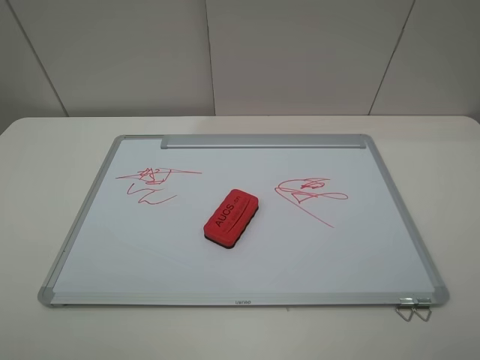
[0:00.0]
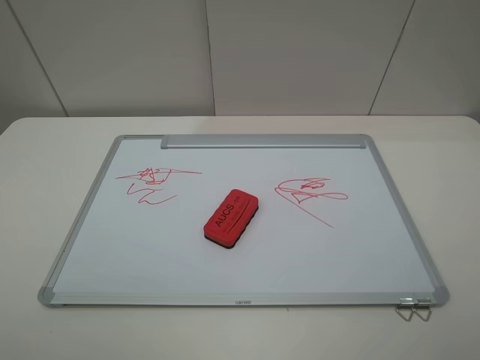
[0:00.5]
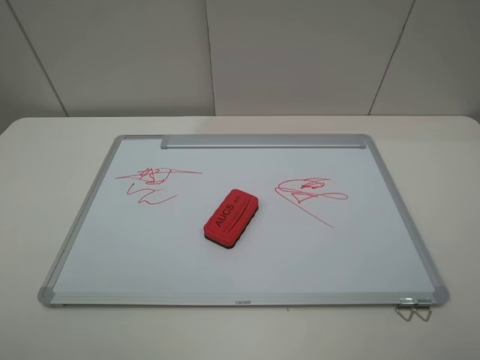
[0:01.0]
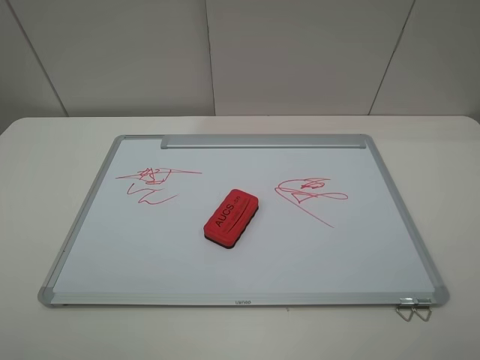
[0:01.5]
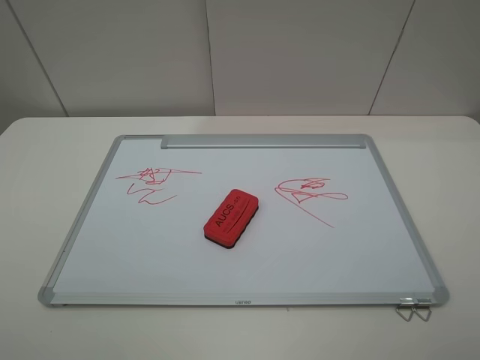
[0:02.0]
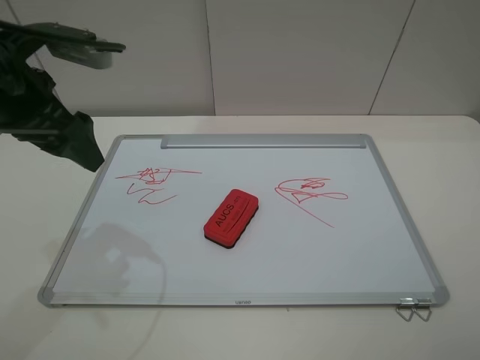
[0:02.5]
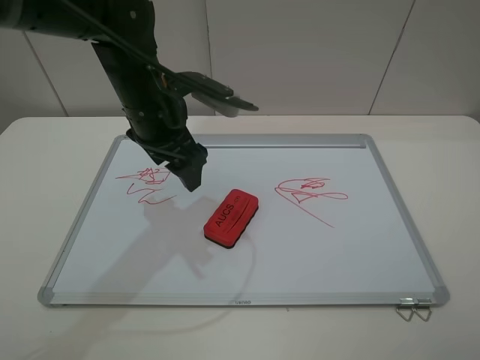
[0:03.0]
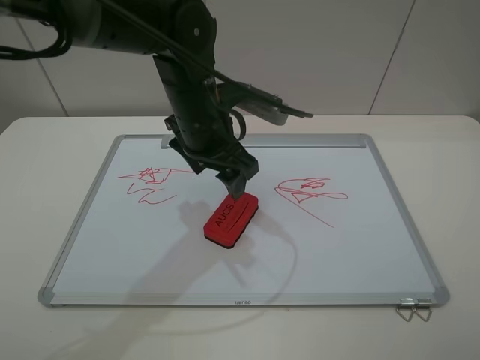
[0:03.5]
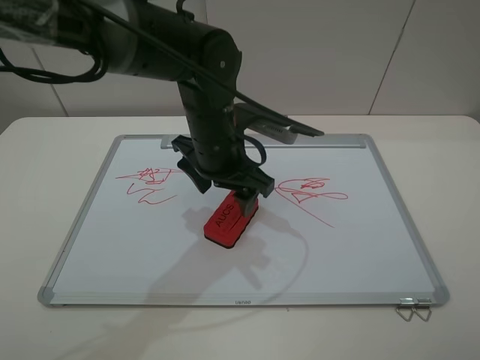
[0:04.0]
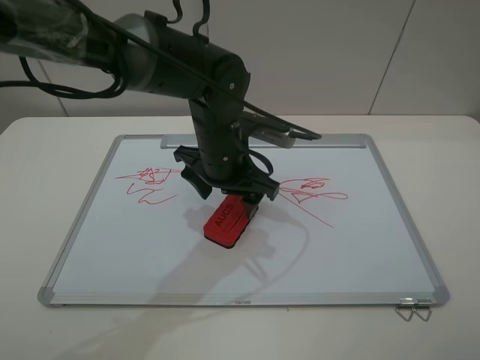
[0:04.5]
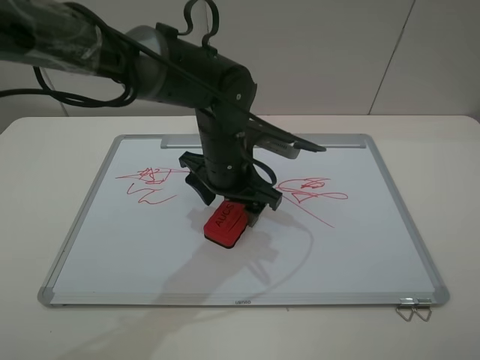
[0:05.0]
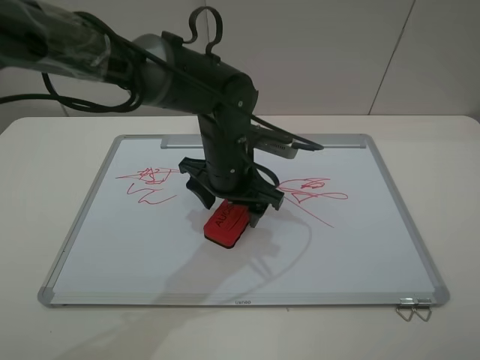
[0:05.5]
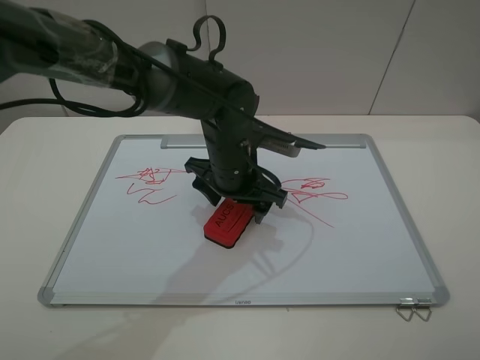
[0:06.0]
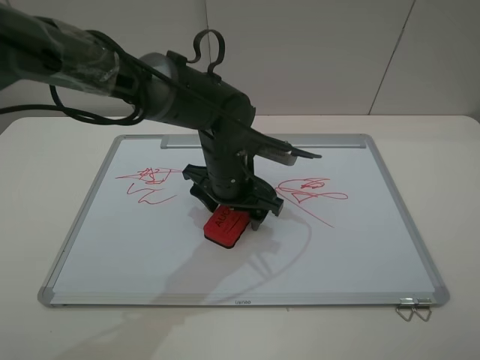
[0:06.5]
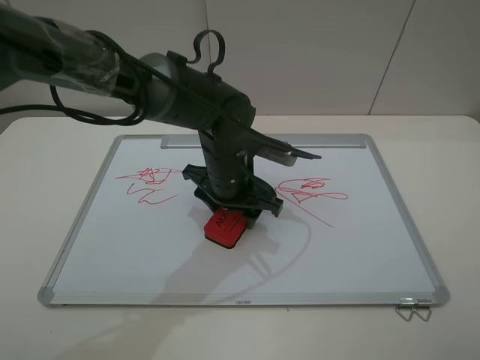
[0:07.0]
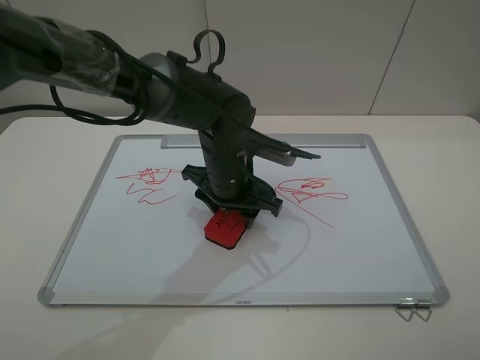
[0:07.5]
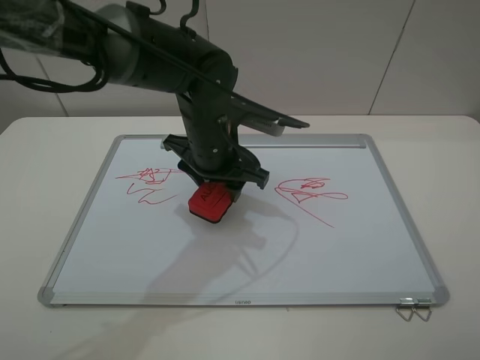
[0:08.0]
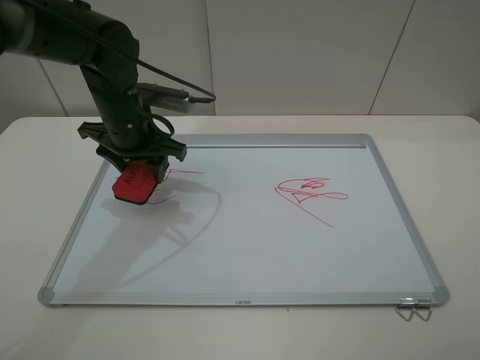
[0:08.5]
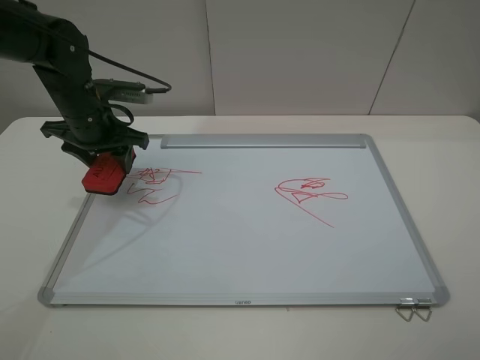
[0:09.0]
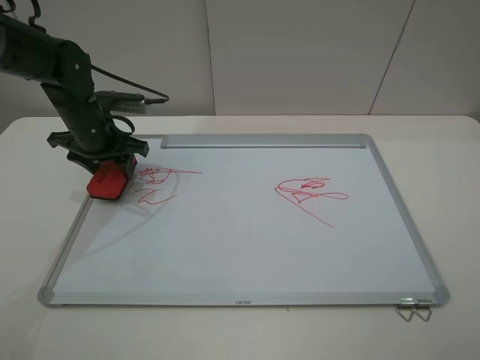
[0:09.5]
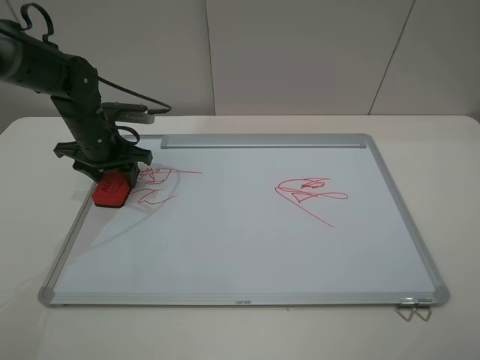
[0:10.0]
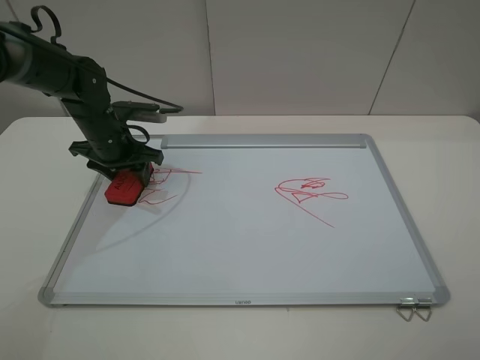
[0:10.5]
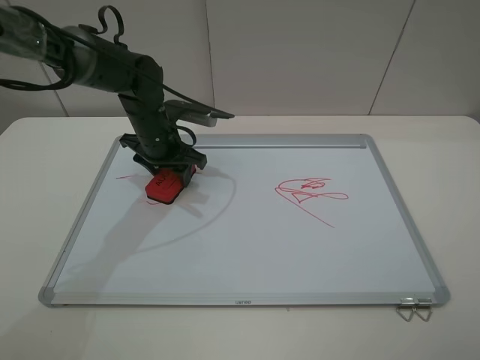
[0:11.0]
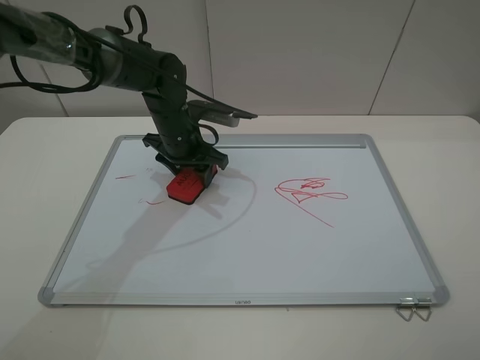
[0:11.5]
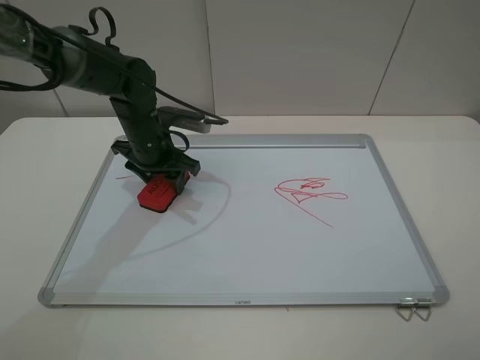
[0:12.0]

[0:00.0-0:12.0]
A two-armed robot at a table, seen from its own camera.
Step, 0.0 to 7.0 s: Grasp the eraser with the left gripper.
2.0 to 4.0 s: The left gripper goes approximately 40 cm to the right, forward and downward.
4.0 to 6.0 s: The grippers make only small movements.
6.0 to 8.0 s: The left gripper closes its fingers.
8.0 to 10.0 s: The left gripper travels to the left by roughly 20 cm.
10.0 to 12.0 s: The left gripper goes about 10 cm to the right.

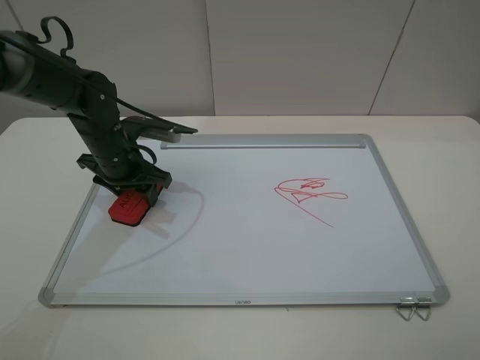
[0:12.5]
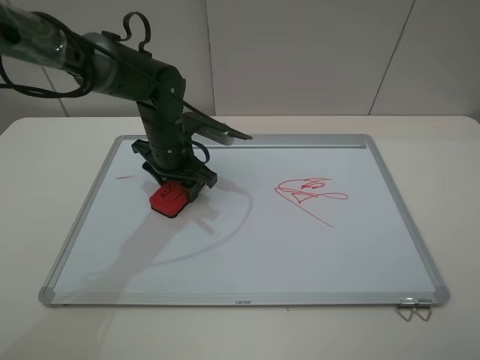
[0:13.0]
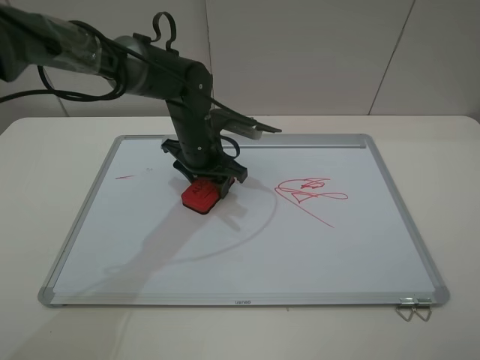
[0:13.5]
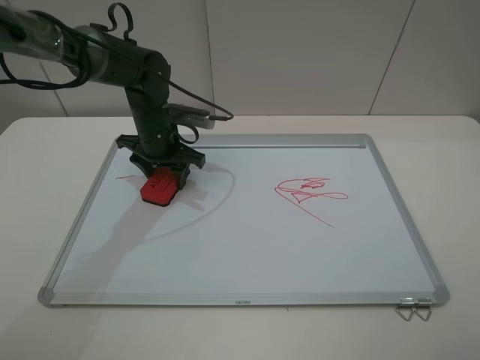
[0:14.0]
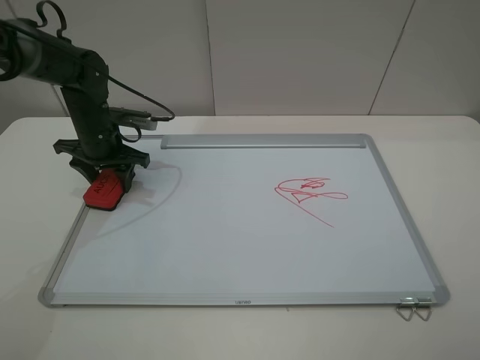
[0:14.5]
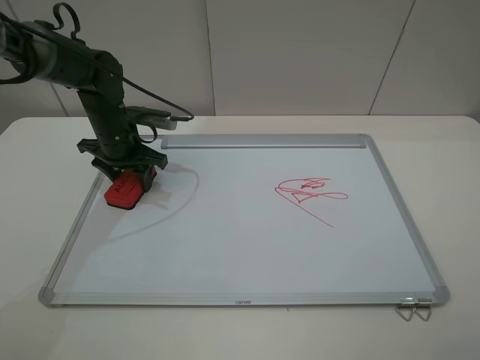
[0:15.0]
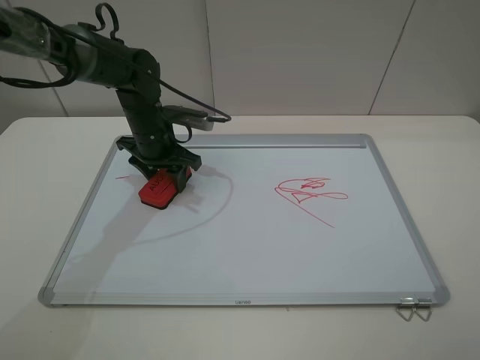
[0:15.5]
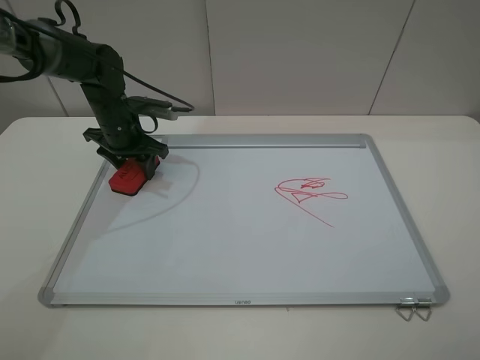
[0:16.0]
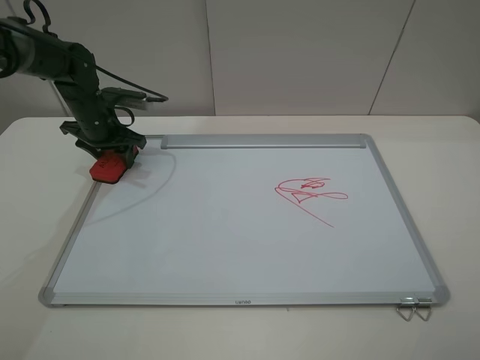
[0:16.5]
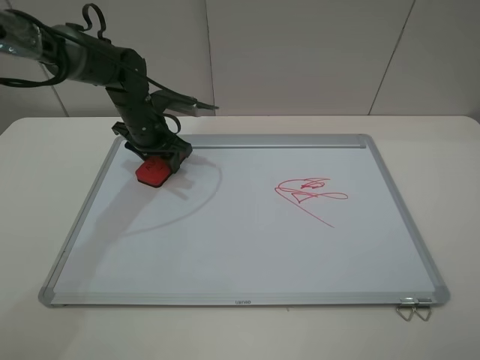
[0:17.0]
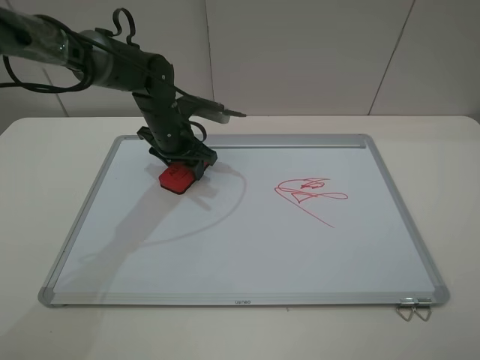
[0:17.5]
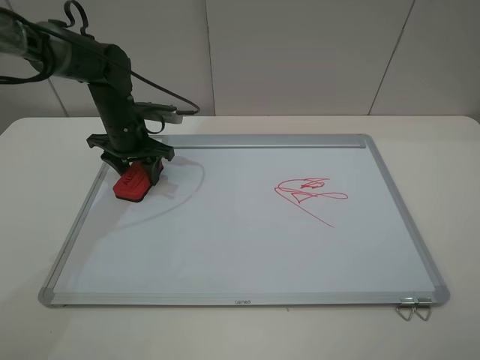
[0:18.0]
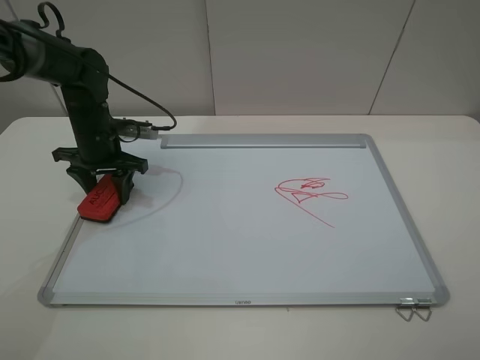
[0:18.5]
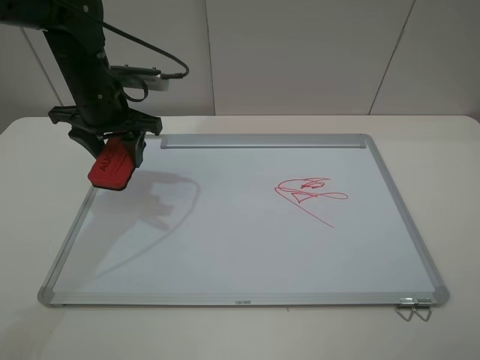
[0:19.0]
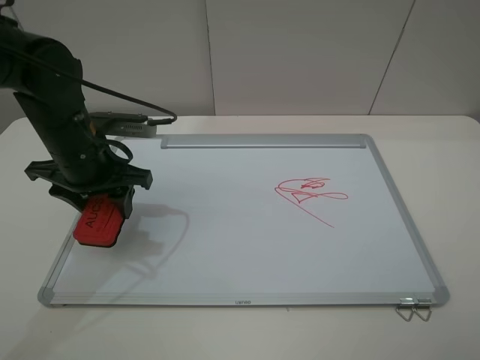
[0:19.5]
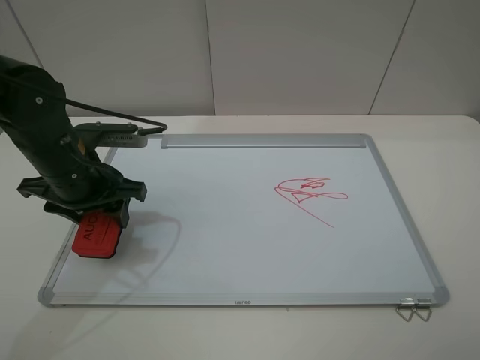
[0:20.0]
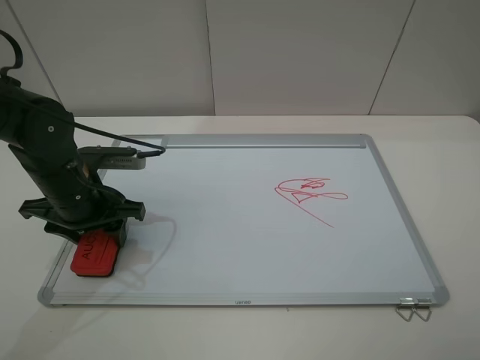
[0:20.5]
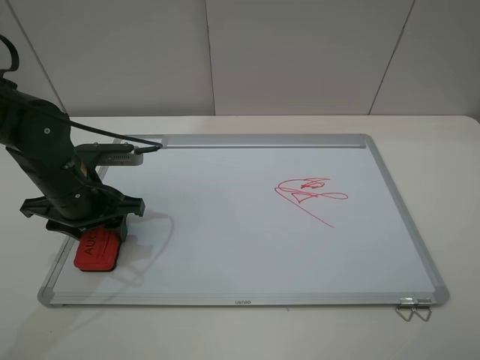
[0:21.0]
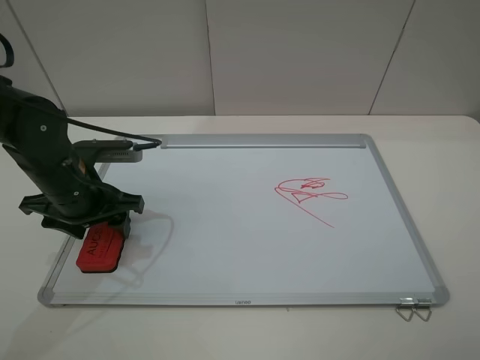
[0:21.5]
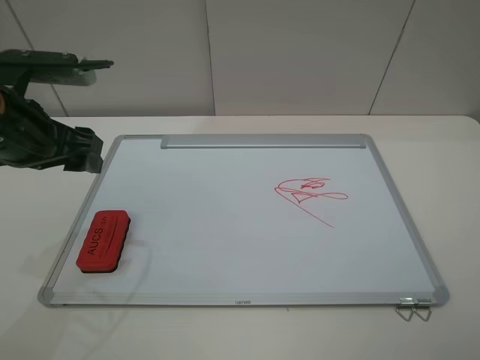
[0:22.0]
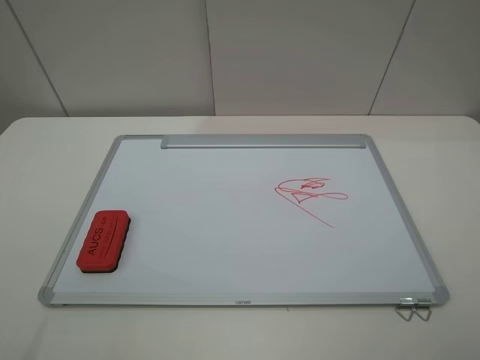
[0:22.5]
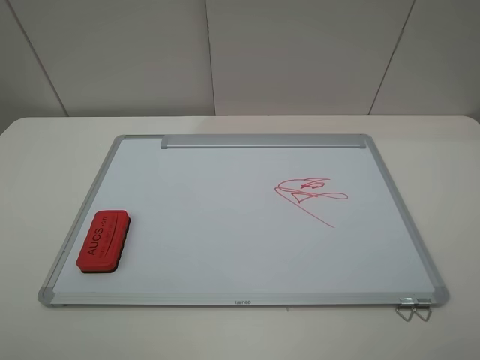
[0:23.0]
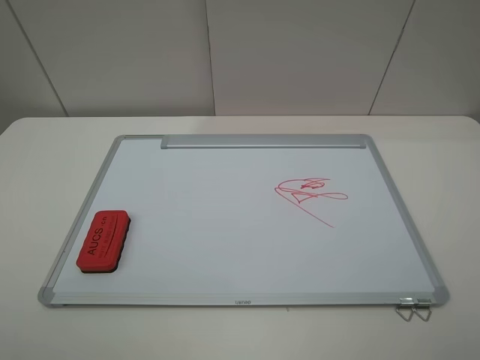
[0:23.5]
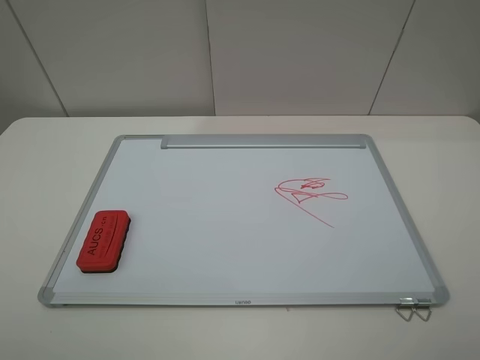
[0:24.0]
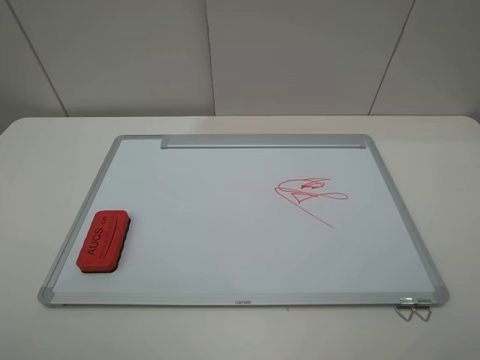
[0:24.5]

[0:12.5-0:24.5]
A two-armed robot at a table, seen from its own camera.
Step, 12.5 to 18.5 s: Grasp the eraser and wipe the blackboard with the left gripper.
Step, 19.0 to 21.5 s: Place the eraser with the left gripper.
12.5 to 14.5 s: The left gripper is displaced forward by approximately 5 cm, and moves about 10 cm to the right and comes back.
14.5 to 16.5 s: The left gripper moves approximately 10 cm to the right and comes back.
16.5 to 18.5 s: The left gripper is displaced backward by roughly 5 cm, and moves some 15 cm to the right and comes back.
18.5 to 20.5 s: The left gripper moves backward, approximately 15 cm.
20.5 to 22.5 s: The left gripper moves upward, backward and to the left, about 30 cm, and opens up.

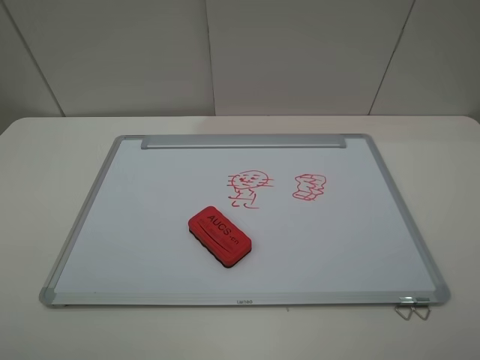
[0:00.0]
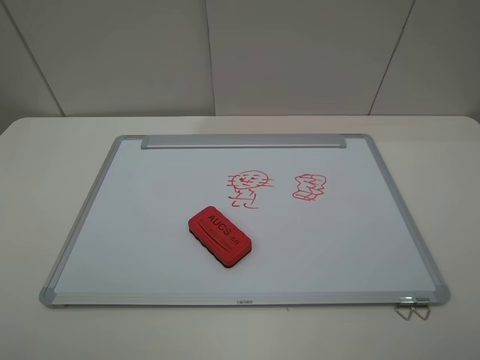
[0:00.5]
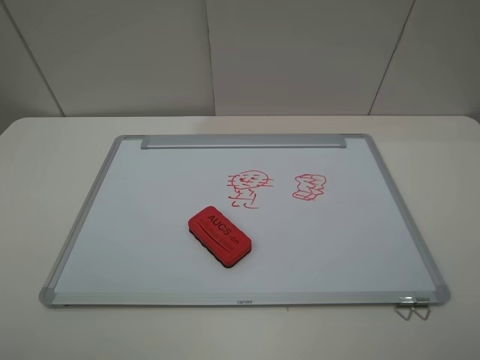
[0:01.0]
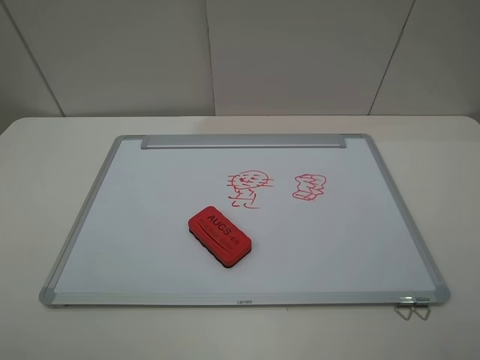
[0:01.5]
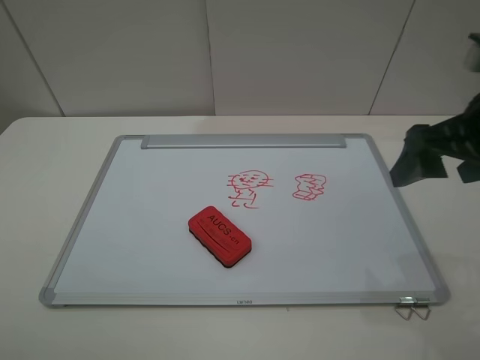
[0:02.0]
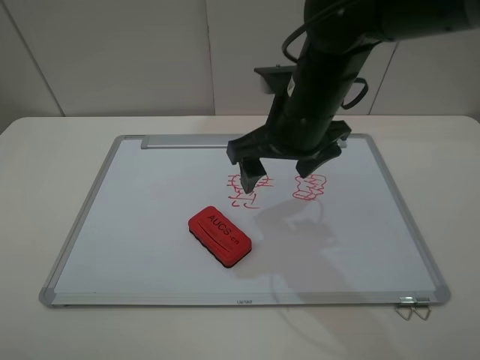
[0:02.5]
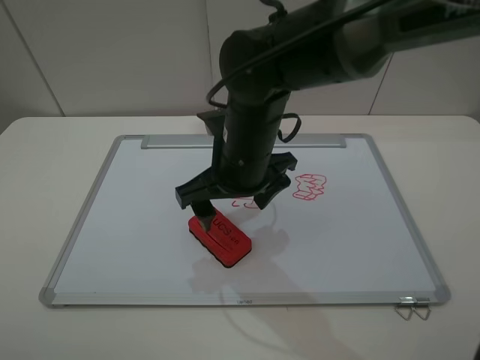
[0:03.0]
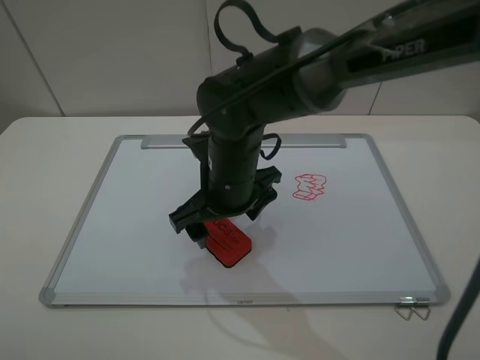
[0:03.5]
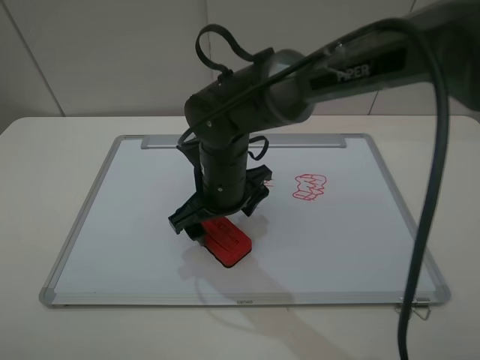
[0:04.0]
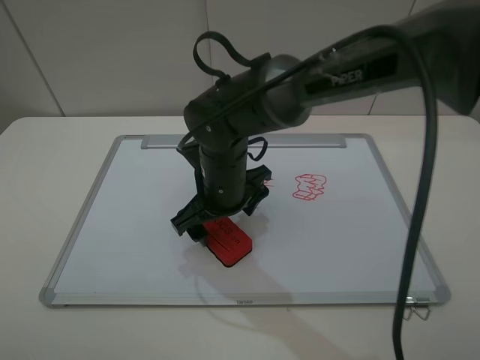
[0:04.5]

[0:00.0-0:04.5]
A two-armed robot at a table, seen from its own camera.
0.0 to 2.0 s: The right gripper goes approximately 20 cm forward.
2.0 to 4.5 s: The right gripper shifts about 30 cm to the left and downward.
